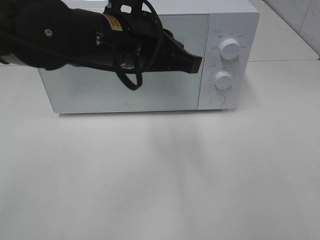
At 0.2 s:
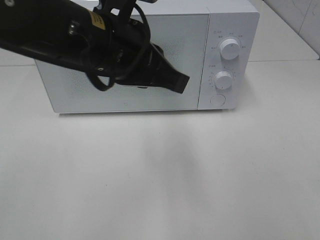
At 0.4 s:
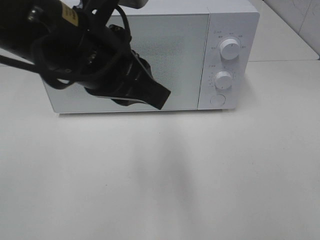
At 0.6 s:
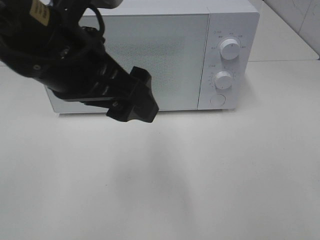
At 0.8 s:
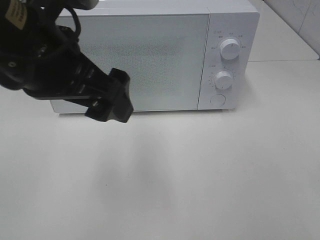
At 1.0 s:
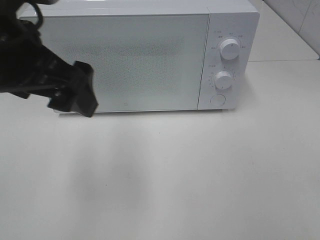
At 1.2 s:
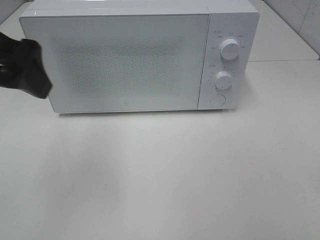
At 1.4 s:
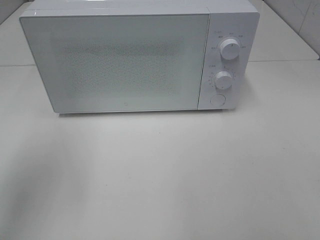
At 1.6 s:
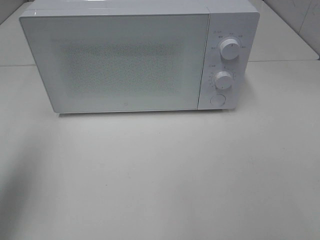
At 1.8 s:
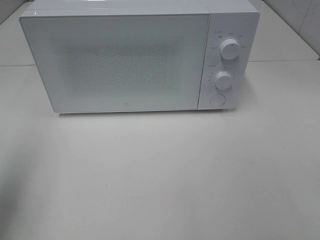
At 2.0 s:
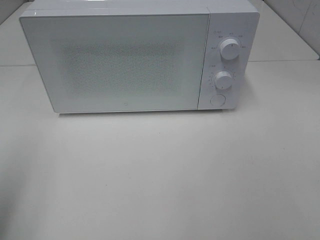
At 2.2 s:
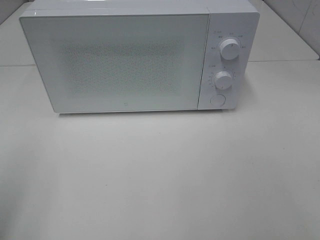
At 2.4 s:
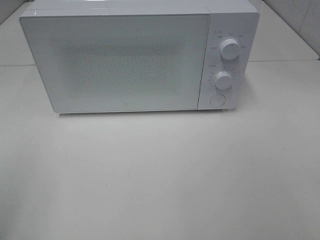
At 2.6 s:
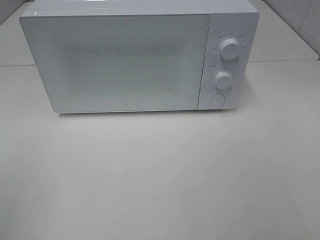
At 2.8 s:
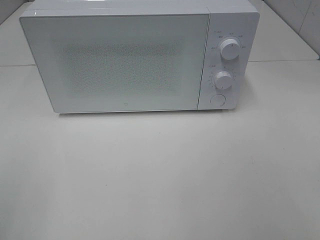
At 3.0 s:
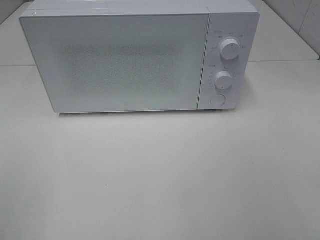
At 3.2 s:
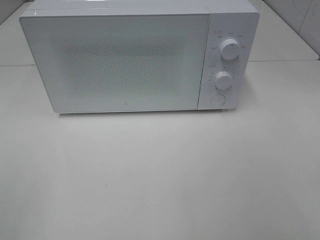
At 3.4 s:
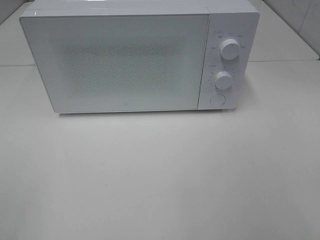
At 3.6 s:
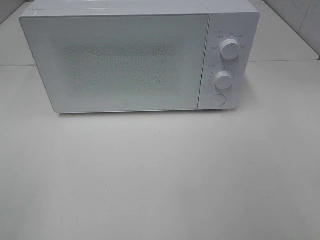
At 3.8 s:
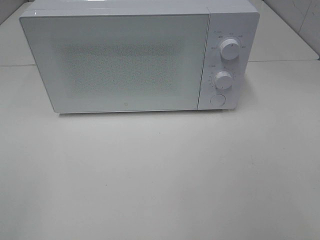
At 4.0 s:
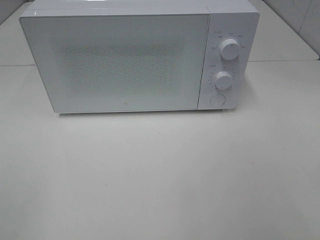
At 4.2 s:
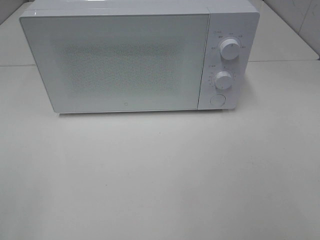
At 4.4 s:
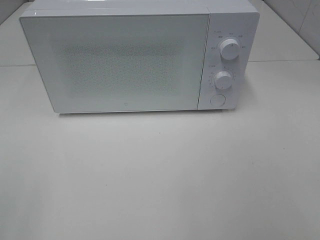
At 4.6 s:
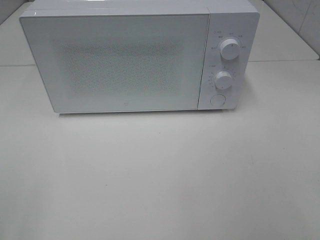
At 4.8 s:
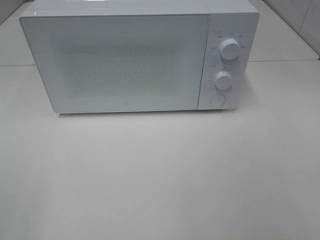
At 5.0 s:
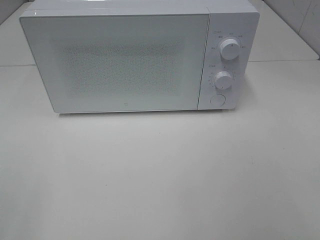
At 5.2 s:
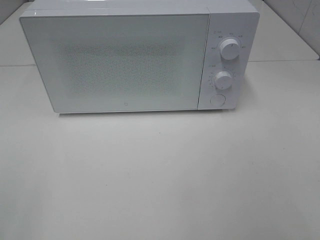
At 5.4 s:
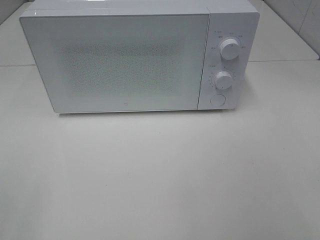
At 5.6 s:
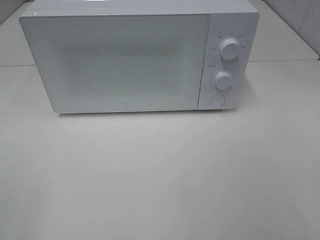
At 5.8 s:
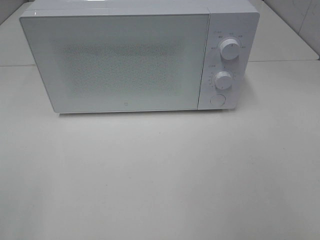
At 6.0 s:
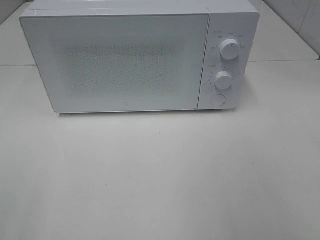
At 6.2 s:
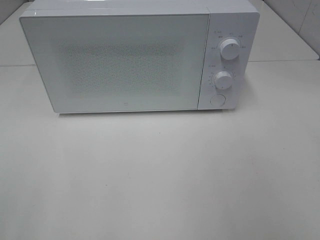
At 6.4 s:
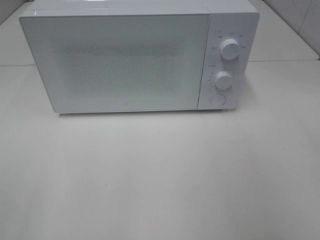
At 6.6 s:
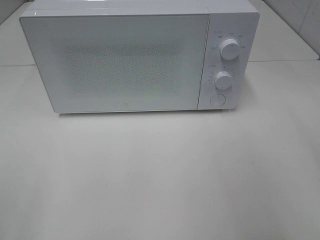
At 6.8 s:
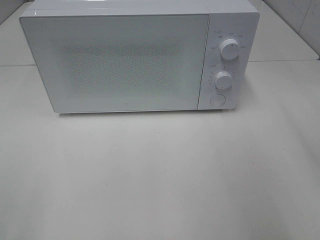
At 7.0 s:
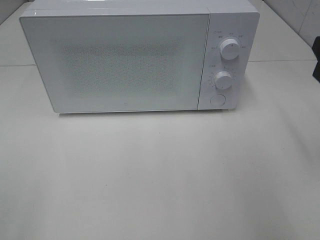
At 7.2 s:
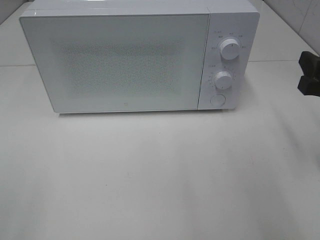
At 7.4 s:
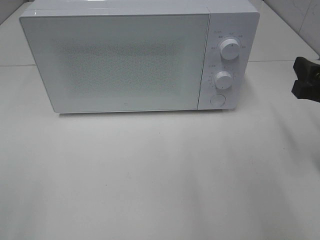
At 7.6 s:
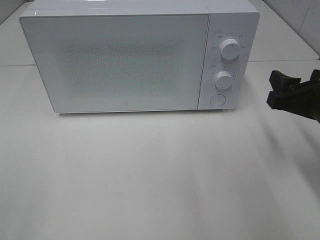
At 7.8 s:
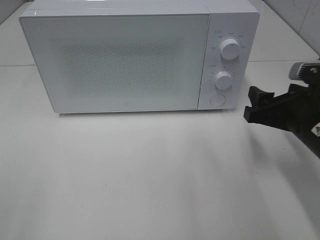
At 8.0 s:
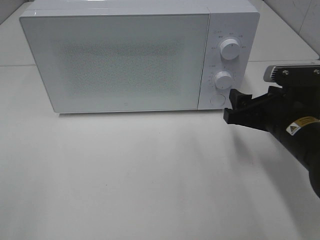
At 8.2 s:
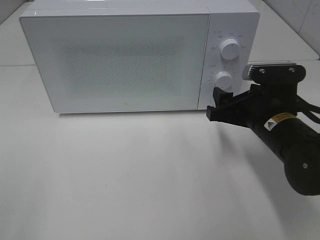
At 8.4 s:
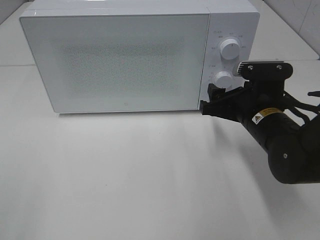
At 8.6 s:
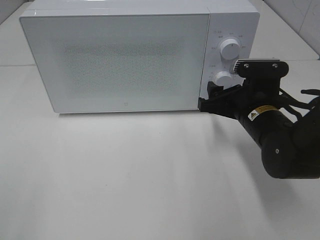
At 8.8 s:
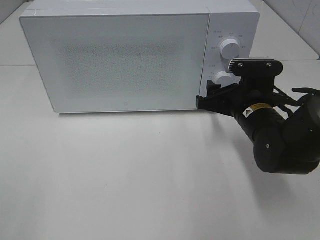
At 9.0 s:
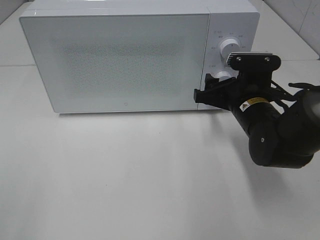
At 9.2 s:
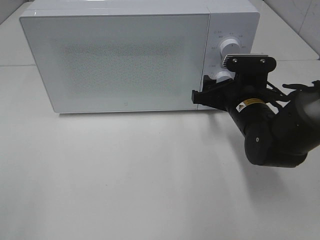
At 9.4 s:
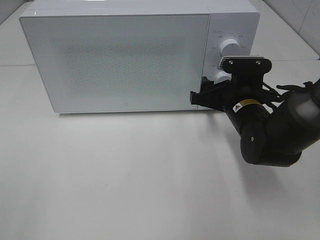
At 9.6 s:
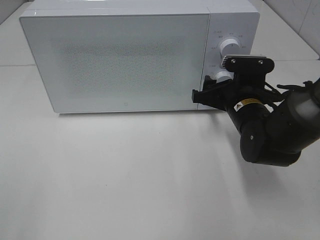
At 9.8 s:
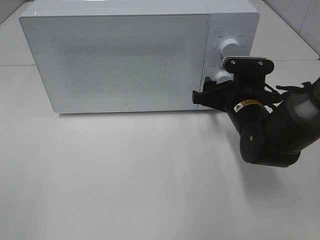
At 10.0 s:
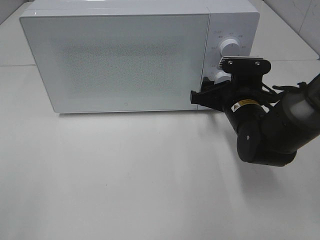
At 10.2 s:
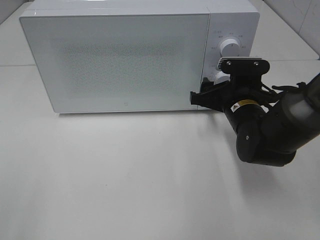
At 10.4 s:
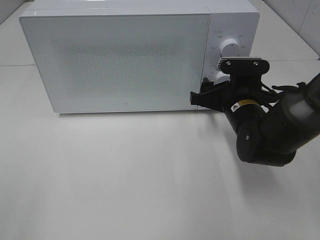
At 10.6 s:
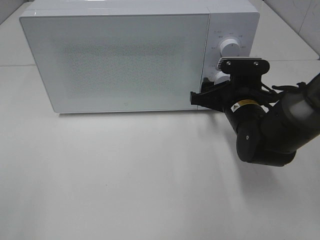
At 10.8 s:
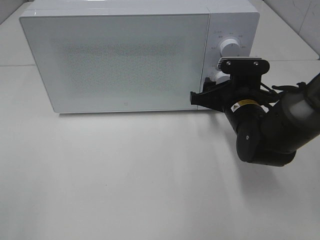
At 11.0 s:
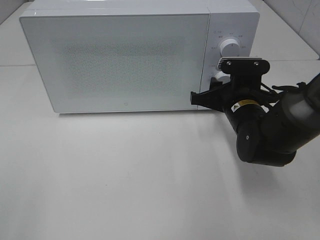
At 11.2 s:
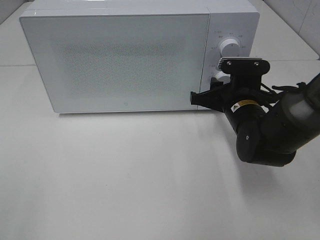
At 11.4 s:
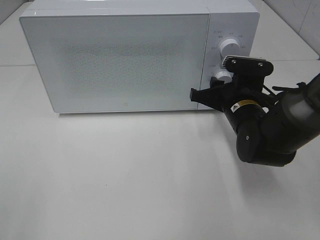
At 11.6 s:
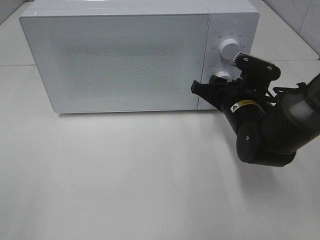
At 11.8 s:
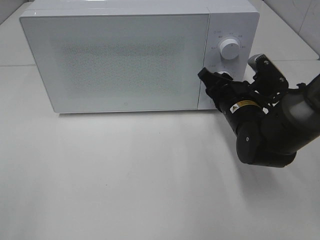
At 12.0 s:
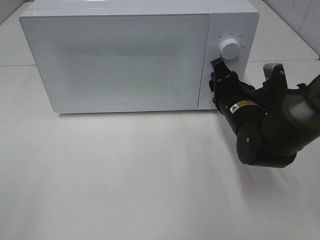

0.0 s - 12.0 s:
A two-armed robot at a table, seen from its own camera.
Task of the whole recording: Heat the burger.
0.0 s - 1.6 s: The left gripper travels to the left by approximately 25 cm, and opens up.
1.6 s - 3.0 s: The left gripper goes approximately 15 cm backward.
6.0 s - 7.6 s: The right gripper is displaced forward and downward by roughly 25 cm.
7.6 s - 9.0 s: The right gripper heads to the left, forward and downward, covering about 15 cm.
9.0 s - 10.4 s: There are only small adjustments of the grippers.
10.4 s - 12.0 s: The right gripper closes.

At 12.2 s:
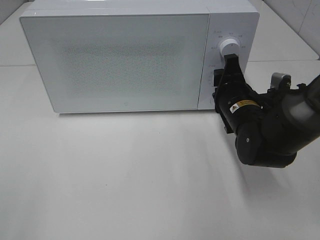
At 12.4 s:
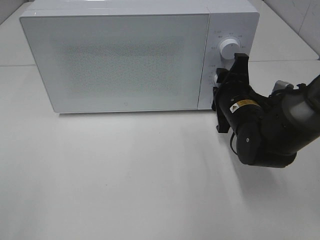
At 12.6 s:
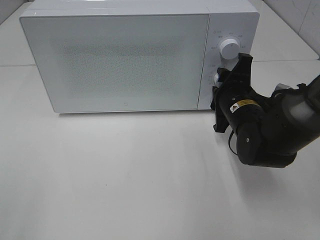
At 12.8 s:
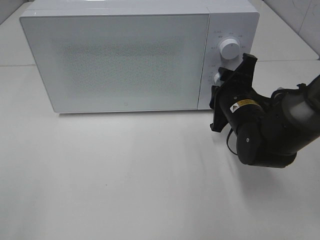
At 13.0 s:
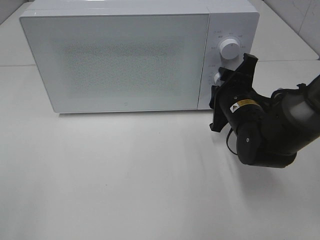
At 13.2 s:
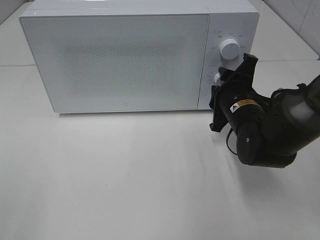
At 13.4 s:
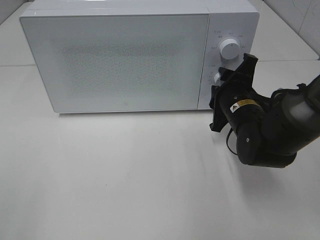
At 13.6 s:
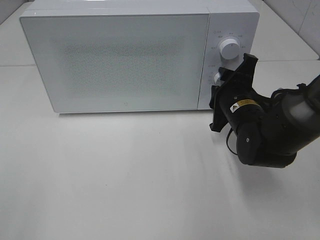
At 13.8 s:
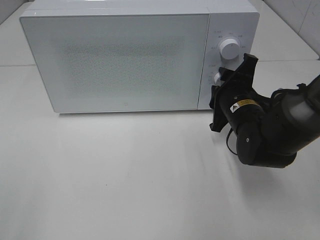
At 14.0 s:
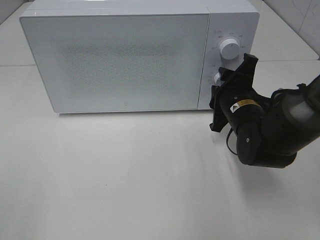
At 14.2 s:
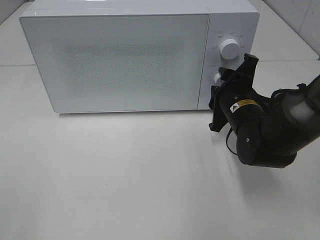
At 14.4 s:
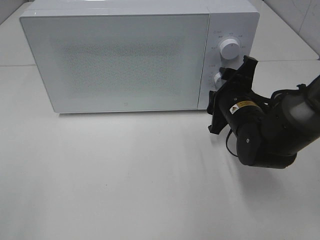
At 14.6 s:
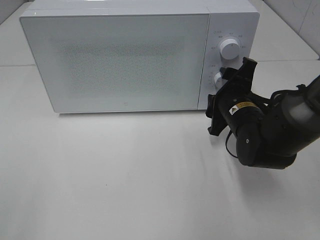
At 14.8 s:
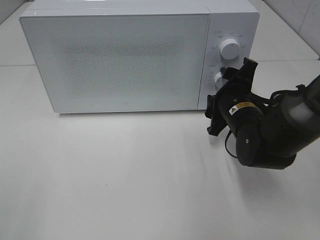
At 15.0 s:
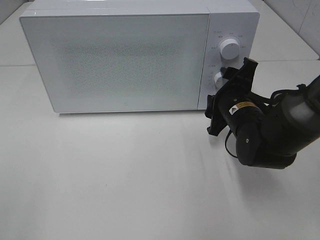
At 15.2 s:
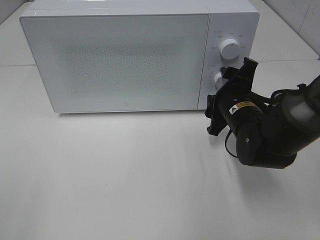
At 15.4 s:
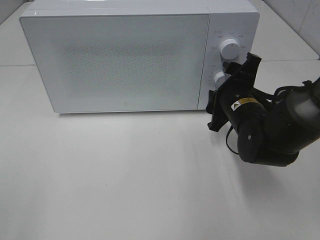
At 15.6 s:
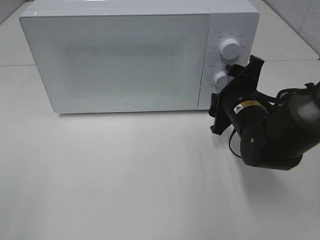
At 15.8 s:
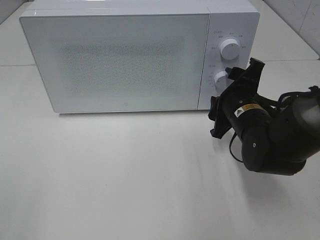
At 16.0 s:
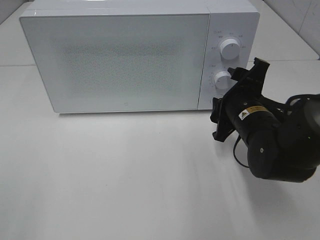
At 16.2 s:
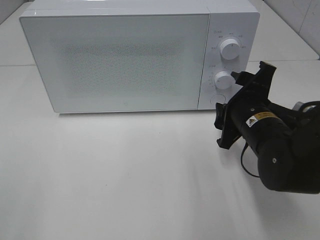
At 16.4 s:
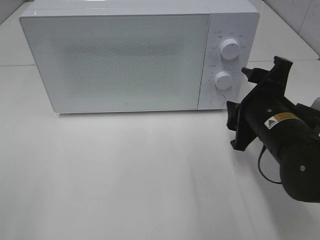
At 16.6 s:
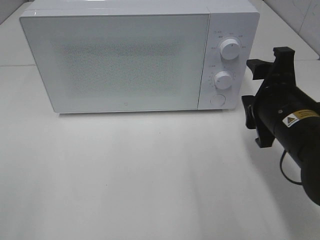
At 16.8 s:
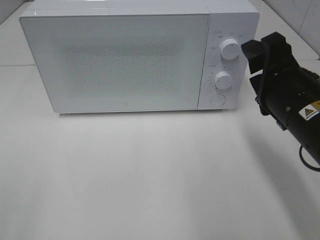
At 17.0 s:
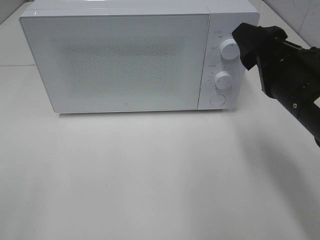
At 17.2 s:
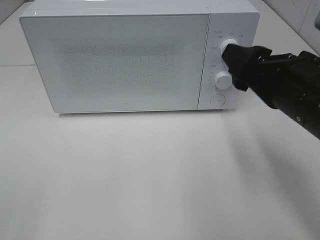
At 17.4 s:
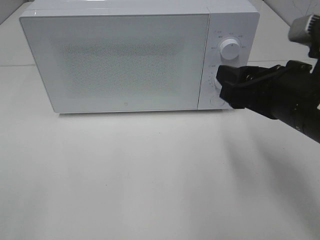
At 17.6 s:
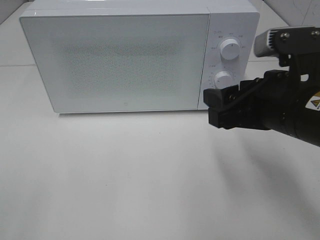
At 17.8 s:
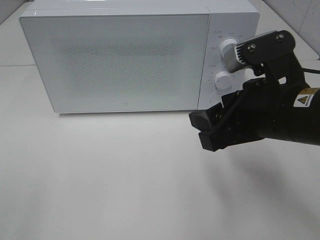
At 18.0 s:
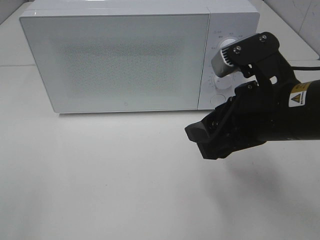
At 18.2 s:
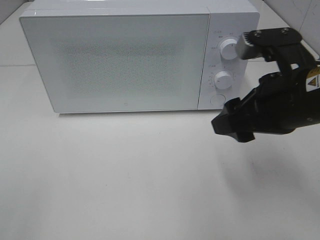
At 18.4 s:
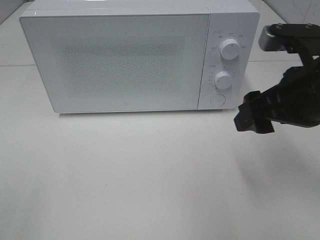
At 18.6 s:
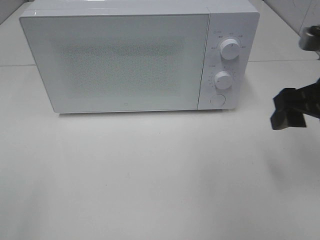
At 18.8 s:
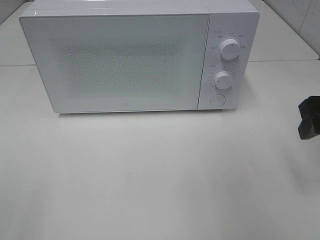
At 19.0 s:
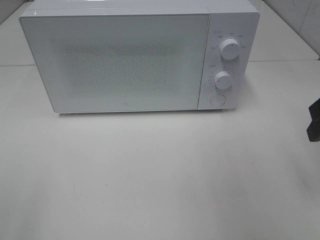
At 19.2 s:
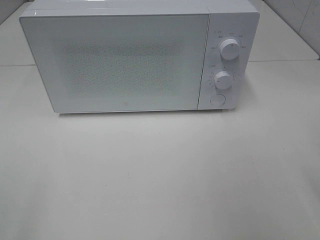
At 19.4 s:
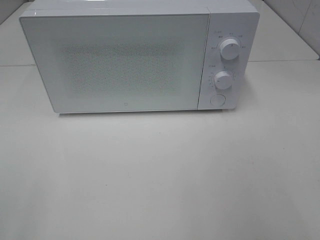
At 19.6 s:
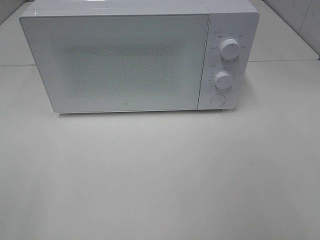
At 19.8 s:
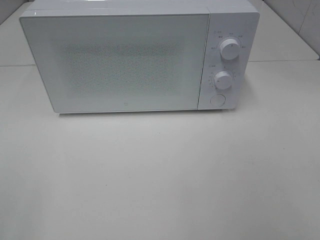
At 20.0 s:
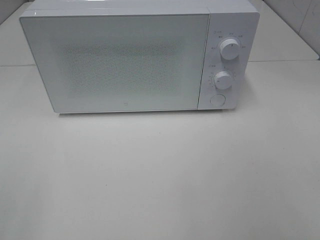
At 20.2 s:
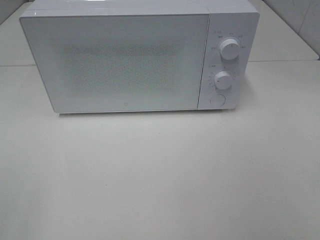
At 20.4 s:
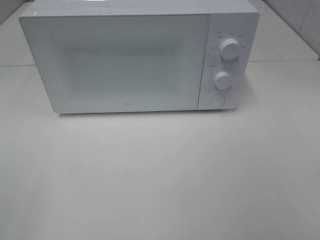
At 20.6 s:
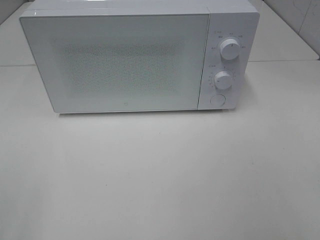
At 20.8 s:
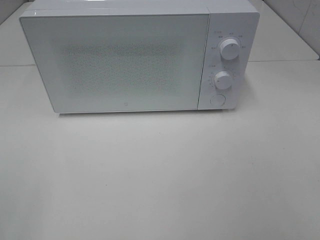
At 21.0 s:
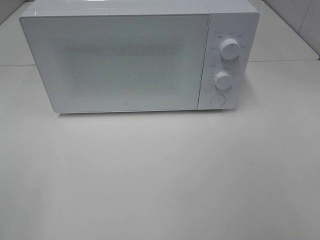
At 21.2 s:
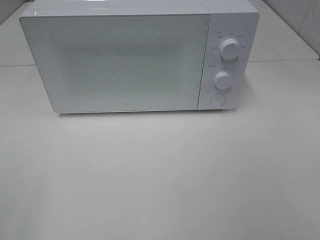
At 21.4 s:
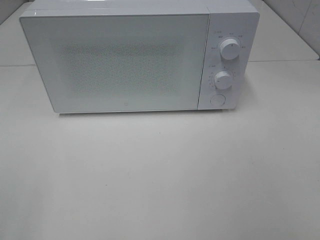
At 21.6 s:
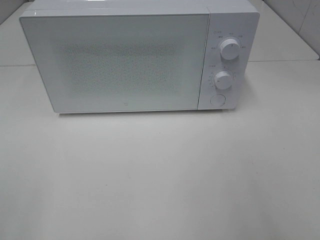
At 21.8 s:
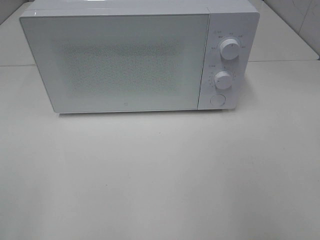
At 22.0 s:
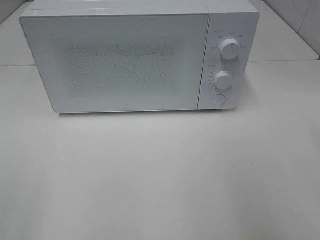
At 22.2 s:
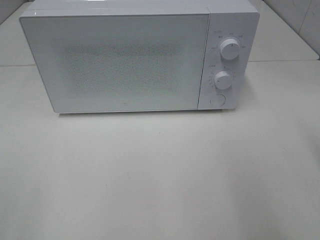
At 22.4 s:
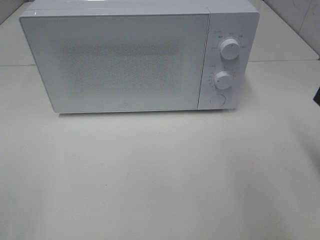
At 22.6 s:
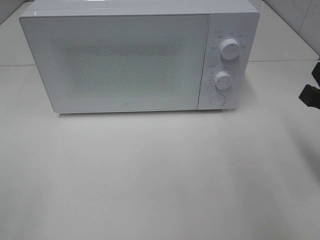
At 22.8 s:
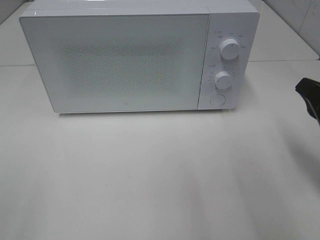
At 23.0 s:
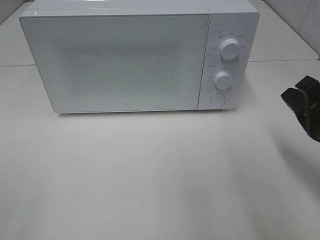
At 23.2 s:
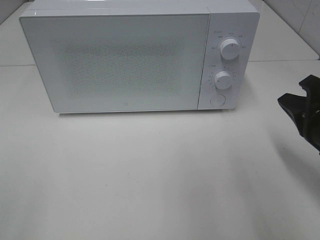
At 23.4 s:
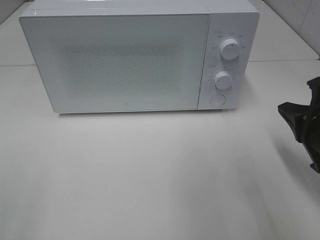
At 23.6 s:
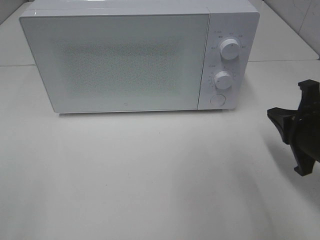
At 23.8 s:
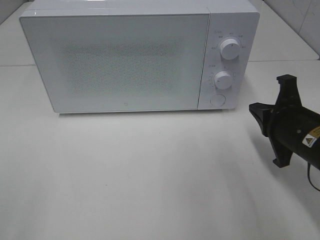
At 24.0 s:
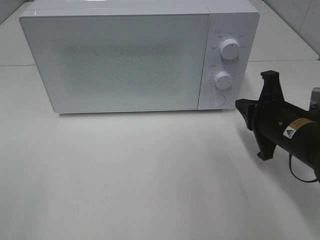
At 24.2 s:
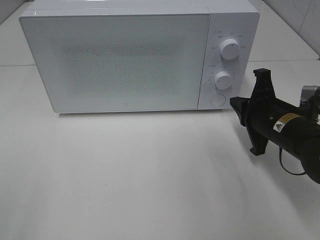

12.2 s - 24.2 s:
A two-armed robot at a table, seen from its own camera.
Task of the whole recording: Heat the burger.
Step, 12.2 s - 14.2 s: Right hand: twist timer button.
13.8 s - 15.2 s: Both grippers stay put.
15.2 s - 16.6 s: The right gripper shifts roughly 10 cm backward and upward.
16.6 s - 18.2 s: The right gripper goes some 5 cm upward.
18.2 s - 19.8 s: The right gripper heads backward and to the right, covering approximately 20 cm.
21.2 s - 22.6 s: The right gripper shifts roughly 20 cm forward and downward, and closes.
22.6 s - 24.2 s: The right gripper goes about 15 cm forward, downward and to the left.
